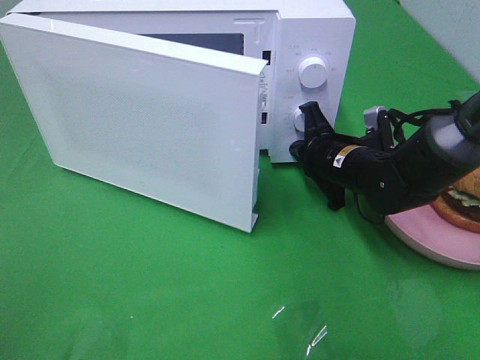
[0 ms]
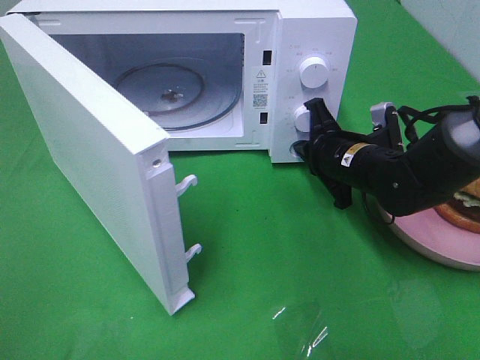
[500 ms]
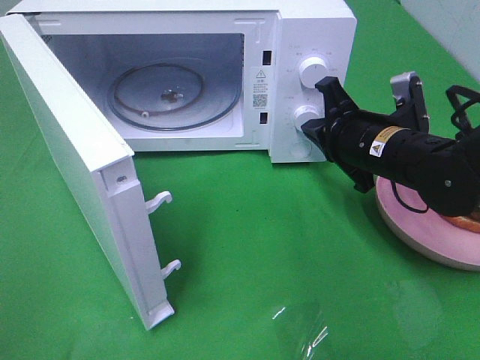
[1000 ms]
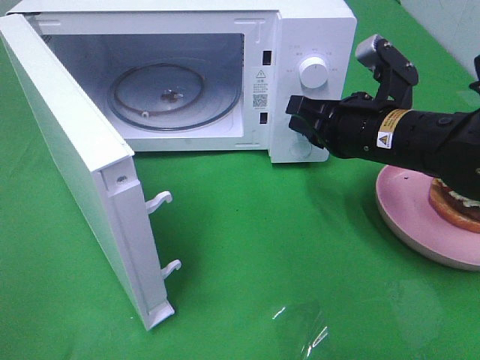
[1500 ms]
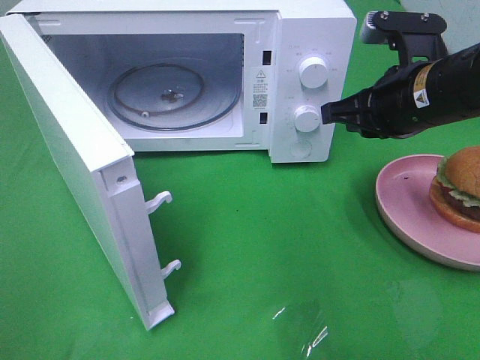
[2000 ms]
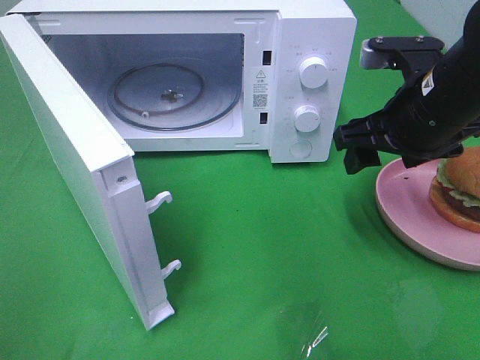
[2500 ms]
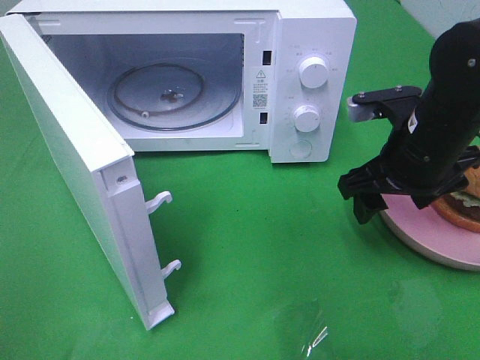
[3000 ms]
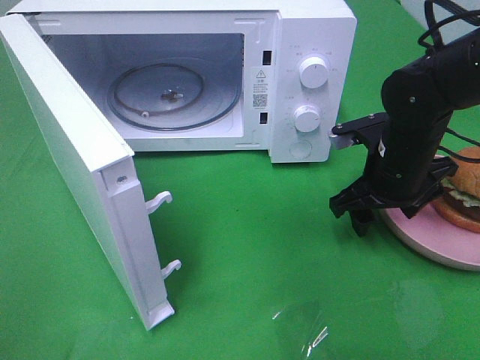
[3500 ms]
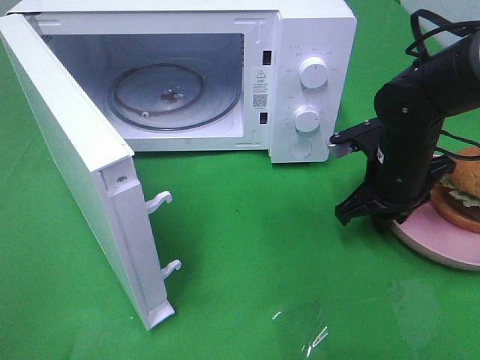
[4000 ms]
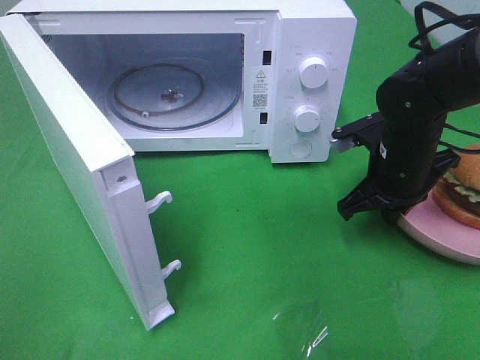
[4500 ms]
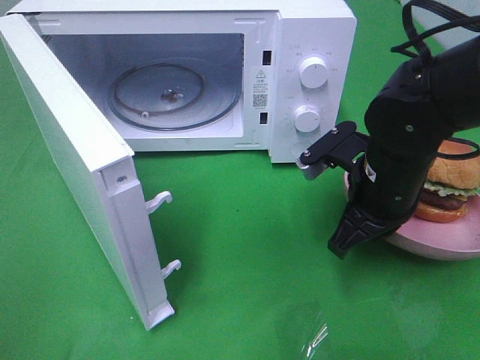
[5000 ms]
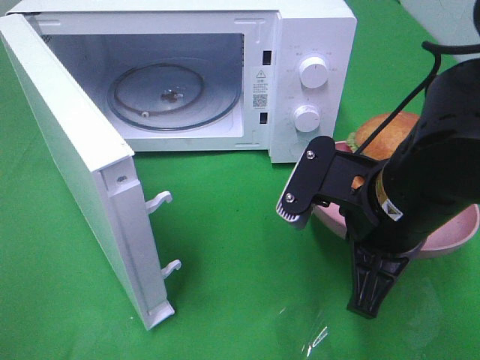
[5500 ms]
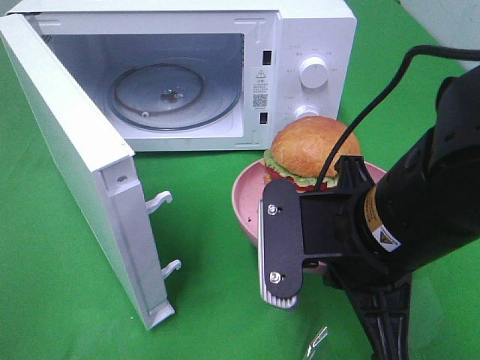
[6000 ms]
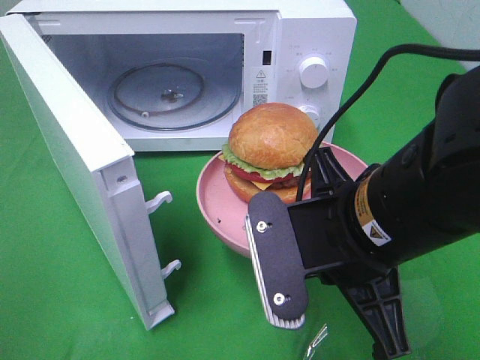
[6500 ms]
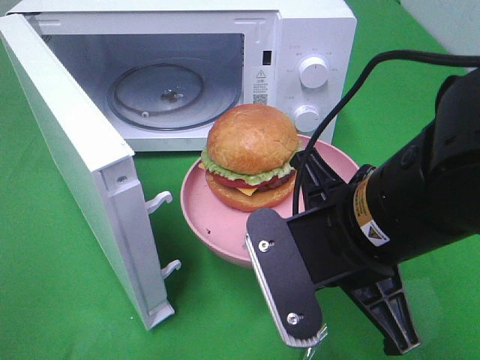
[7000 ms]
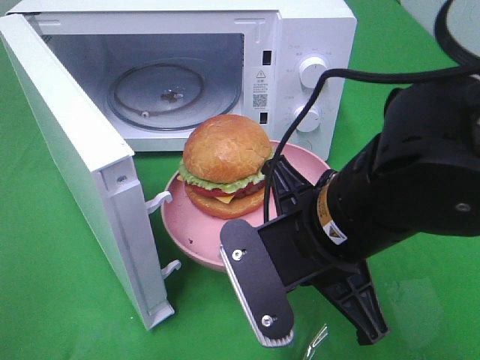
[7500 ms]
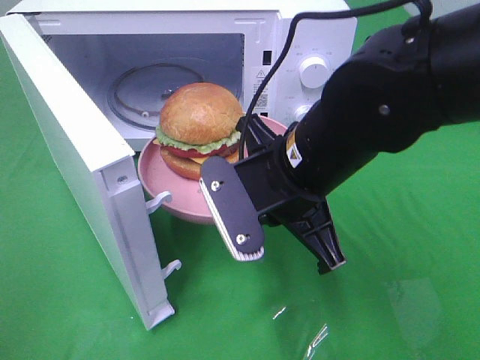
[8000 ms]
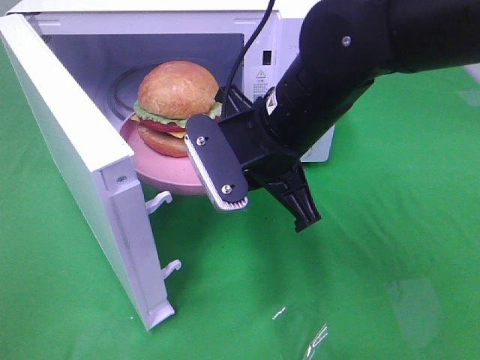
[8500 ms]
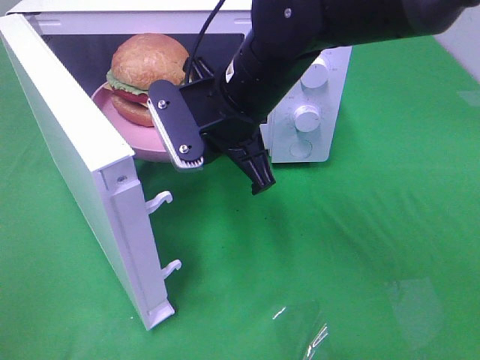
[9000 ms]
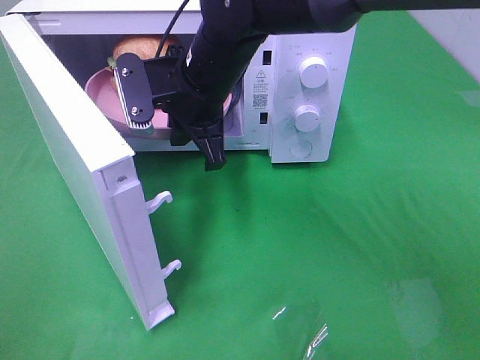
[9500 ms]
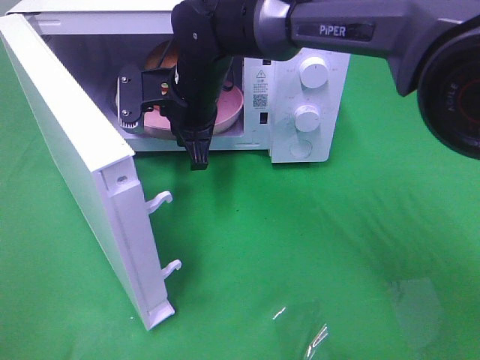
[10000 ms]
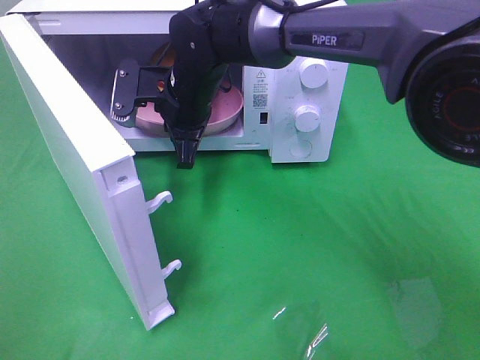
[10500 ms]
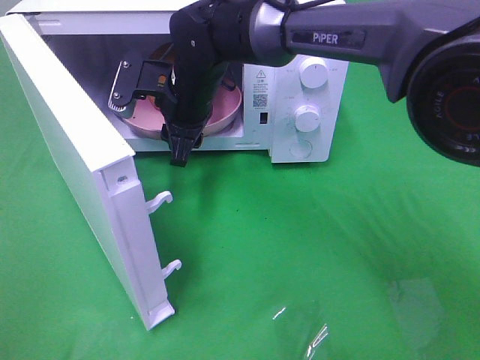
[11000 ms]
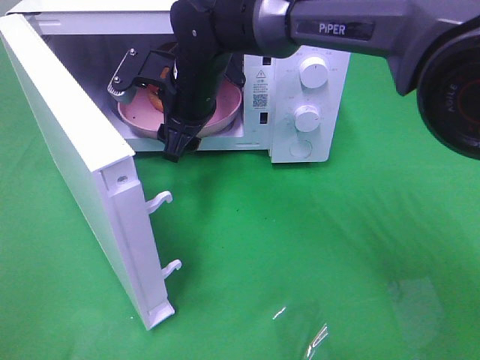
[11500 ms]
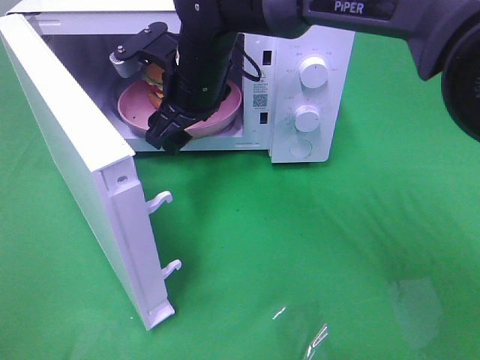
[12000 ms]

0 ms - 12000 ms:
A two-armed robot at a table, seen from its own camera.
Task of the whole recording: Heat the burger.
Step, 1500 ms - 4500 ms: Right hand: grab the plate with the hamburger.
Step, 5000 ms - 11000 ms: Right hand: place the plate in the microwave.
0 ms - 2000 ms: The right gripper travels upward and backward by roughly 15 cm, and opens.
2000 ms - 4000 ms: The right gripper shifts about 10 cm downward, and opens, then closes once more.
4000 ms - 6000 ms: The right gripper moves backward, upward and to the left, roughly 20 cm, and closes up.
6000 ms - 8000 ms: The right gripper travels forward by approximately 10 cm.
8000 ms - 10000 ms: The right gripper heads forward and to the left, covering about 20 cm.
10000 ms - 12000 ms: The right gripper opens up.

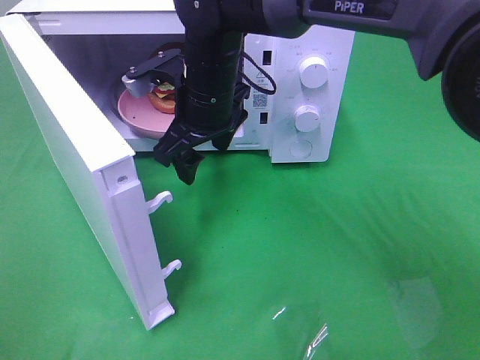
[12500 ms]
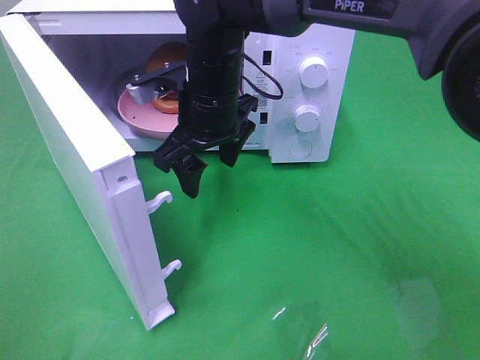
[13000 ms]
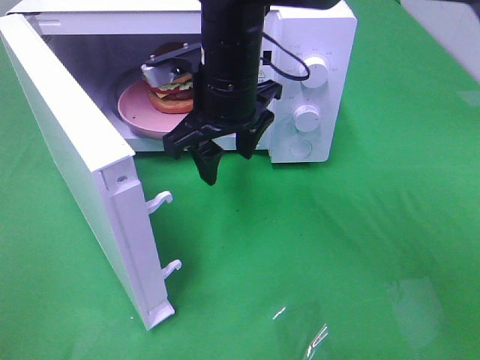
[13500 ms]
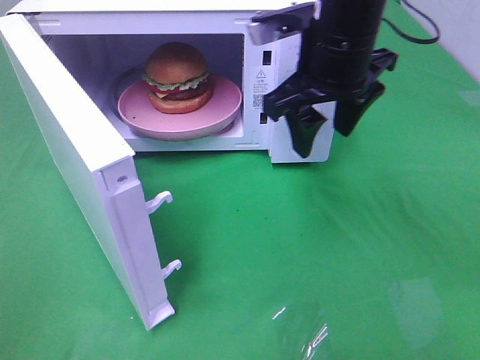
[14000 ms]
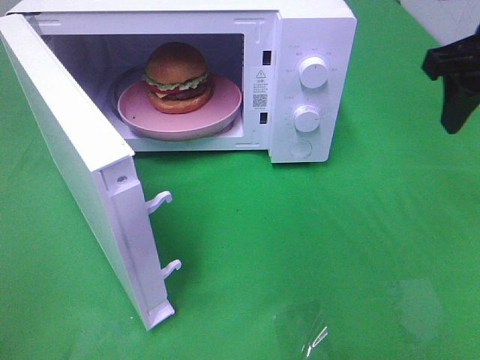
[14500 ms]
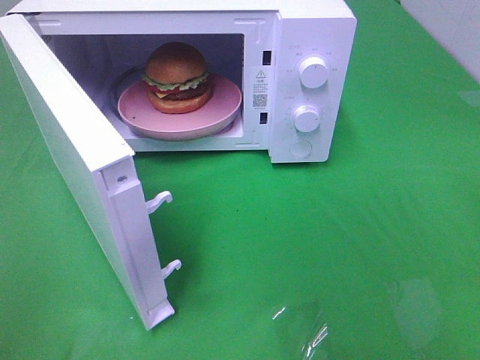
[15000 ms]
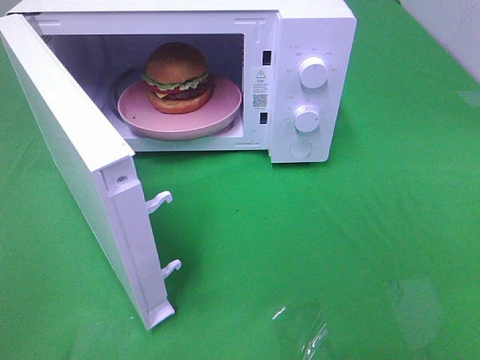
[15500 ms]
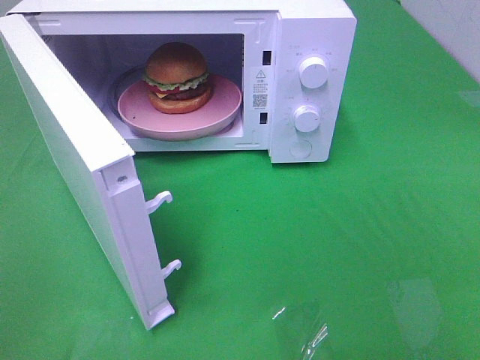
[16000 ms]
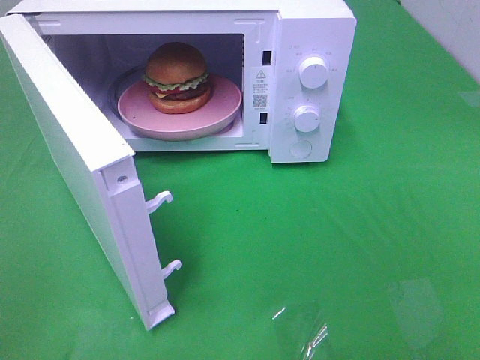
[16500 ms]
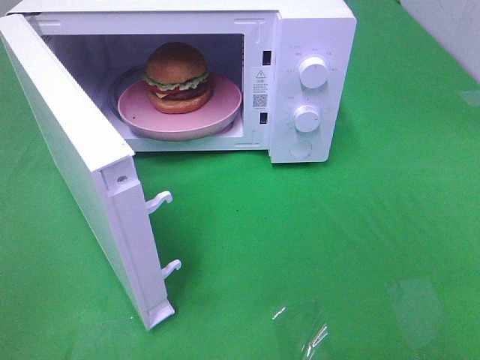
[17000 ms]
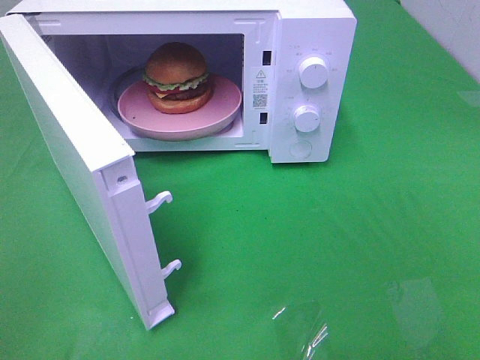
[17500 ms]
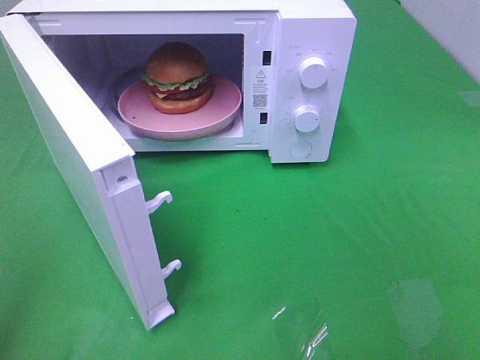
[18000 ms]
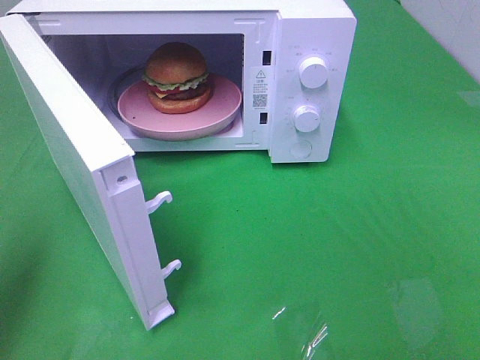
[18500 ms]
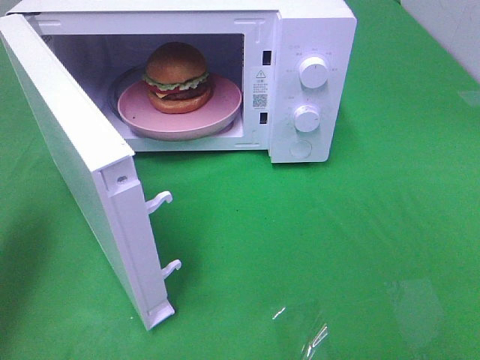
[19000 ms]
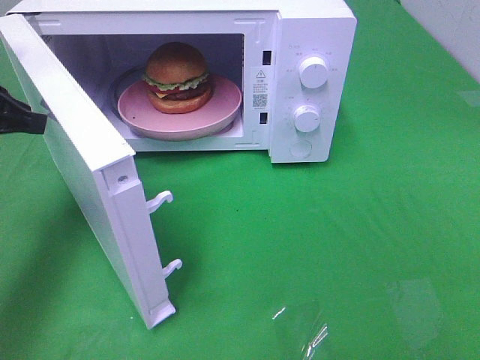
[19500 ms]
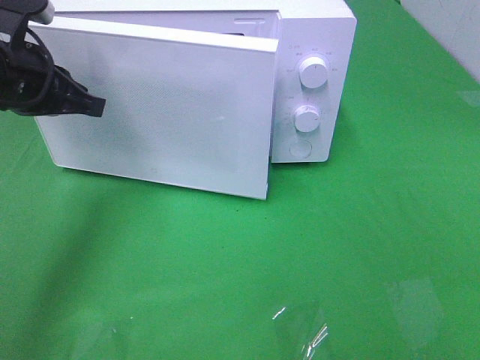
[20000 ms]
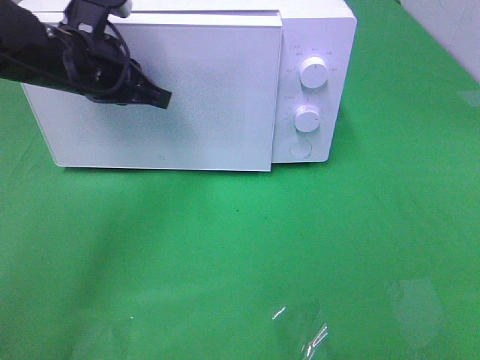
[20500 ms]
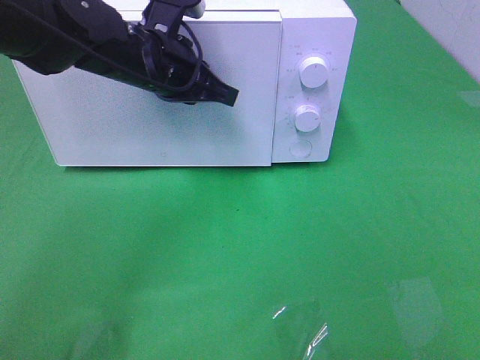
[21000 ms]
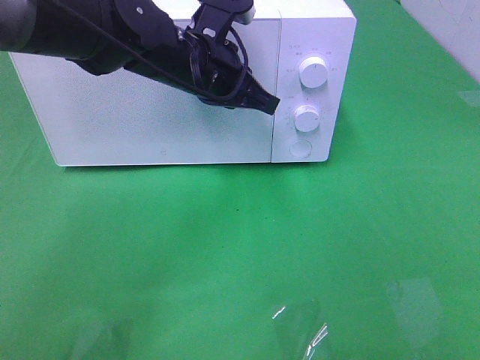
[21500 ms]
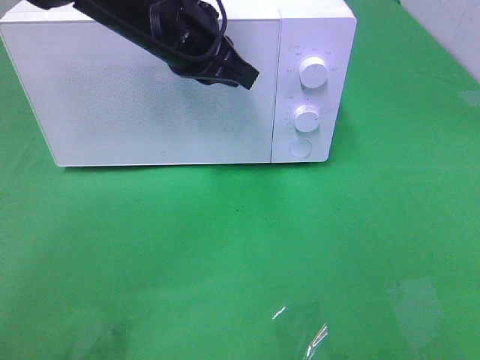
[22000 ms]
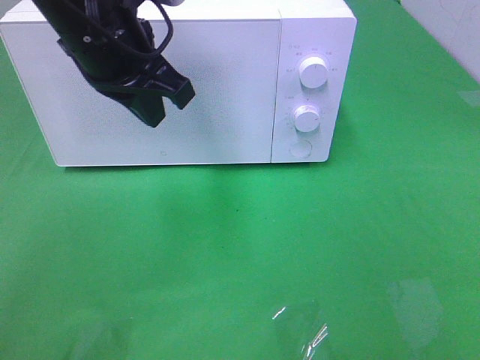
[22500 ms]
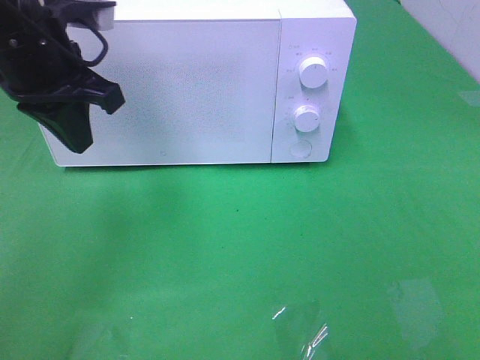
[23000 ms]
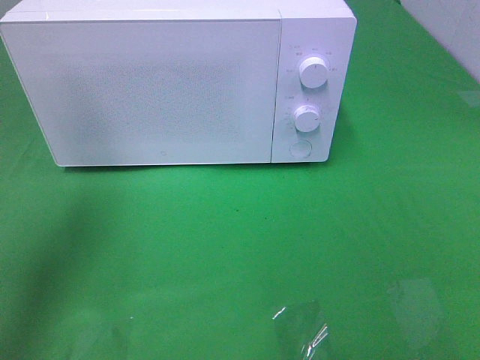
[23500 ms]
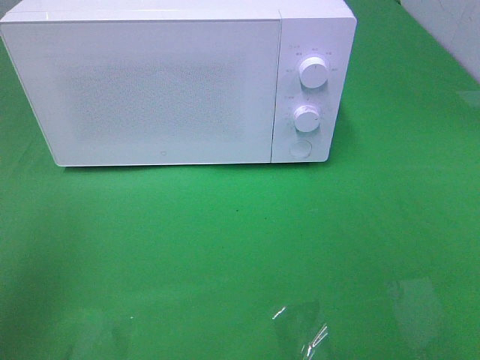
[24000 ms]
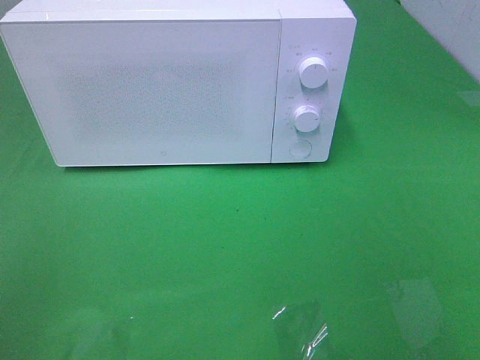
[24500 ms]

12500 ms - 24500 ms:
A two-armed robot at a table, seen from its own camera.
Task of the whole recording: Heat the burger.
Step, 12500 ms - 22000 ms: Left hand: close the microwave door.
12500 ms - 14500 ms: The right gripper is displaced to the right and upward by approximately 30 cm.
14500 ms - 16500 ms: The right gripper travels backward by some 30 cm.
16500 ms - 18500 ms: The left gripper is displaced forward by roughly 15 cm.
18500 ms - 20500 ms: The left gripper heads forward and to the right, covering approximately 25 cm.
20500 ms - 22500 ms: The left gripper goes approximately 5 cm upward.
22500 ms - 24500 ms: The left gripper goes approximately 35 cm backward and to the left.

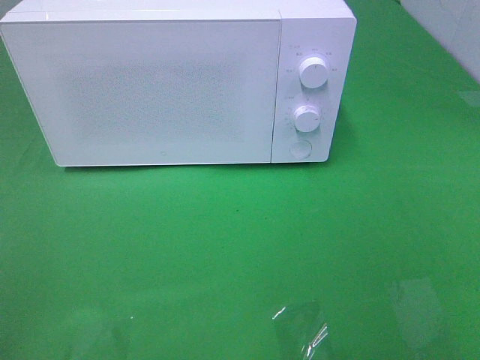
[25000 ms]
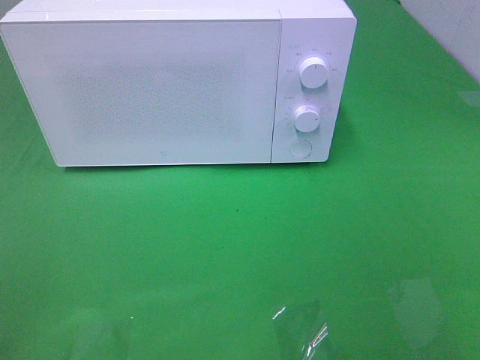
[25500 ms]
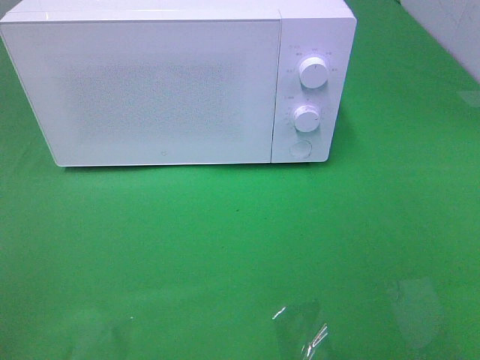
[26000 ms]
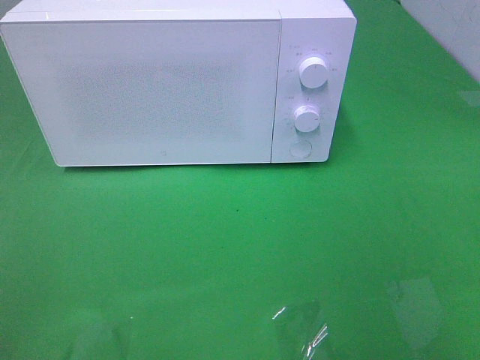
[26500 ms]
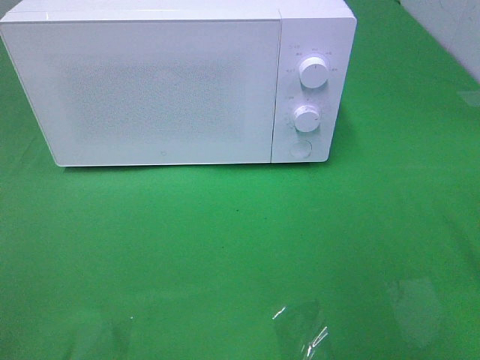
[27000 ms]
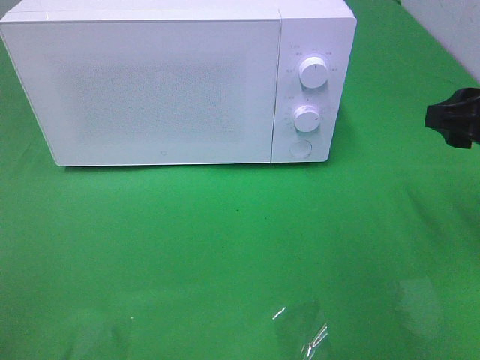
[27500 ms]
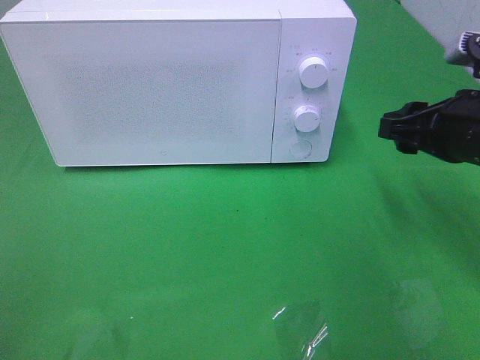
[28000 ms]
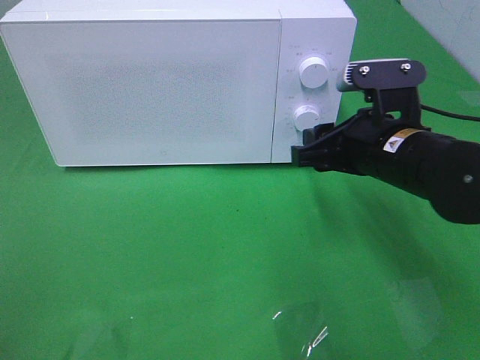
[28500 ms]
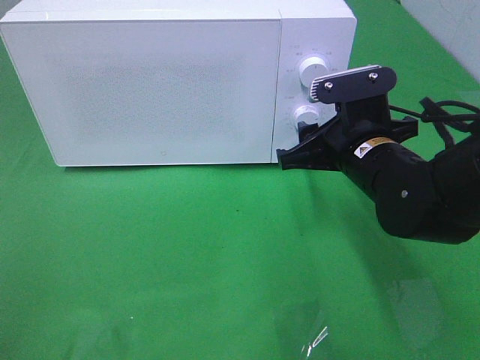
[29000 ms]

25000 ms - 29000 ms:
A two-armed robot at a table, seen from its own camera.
Task of the whole recording: Heat the burger.
27000 ms - 29000 ms: The right gripper travels to the left, downward and forward by approximately 20 cm.
